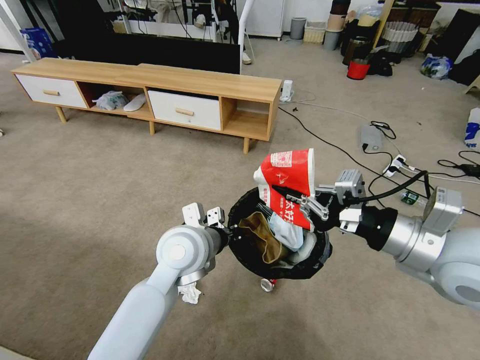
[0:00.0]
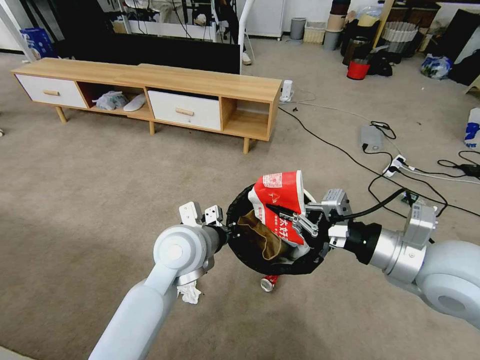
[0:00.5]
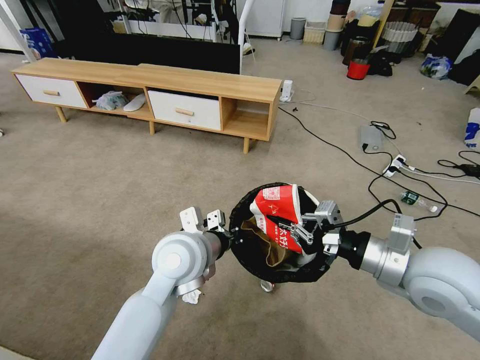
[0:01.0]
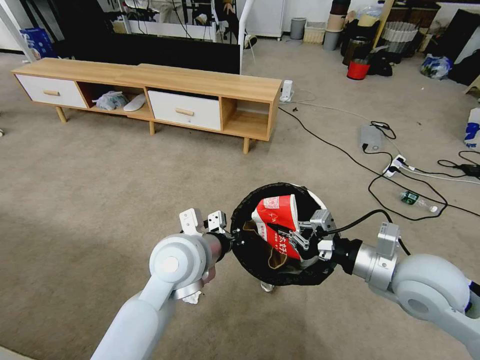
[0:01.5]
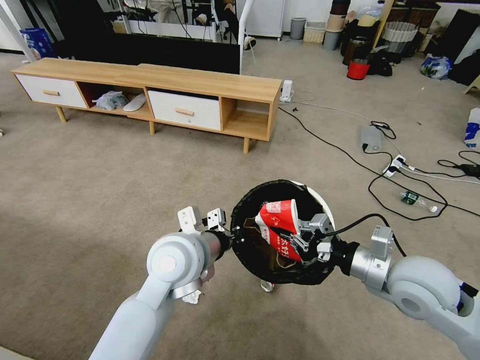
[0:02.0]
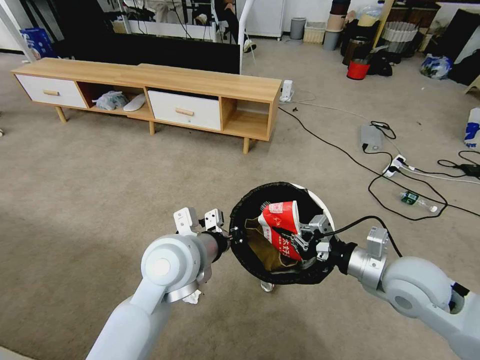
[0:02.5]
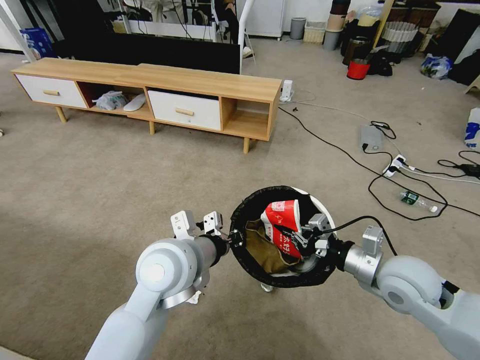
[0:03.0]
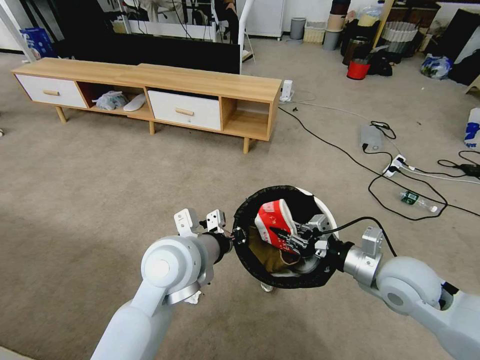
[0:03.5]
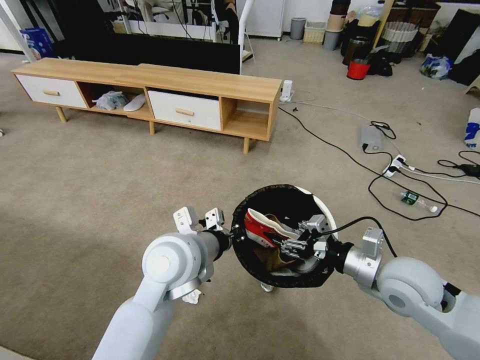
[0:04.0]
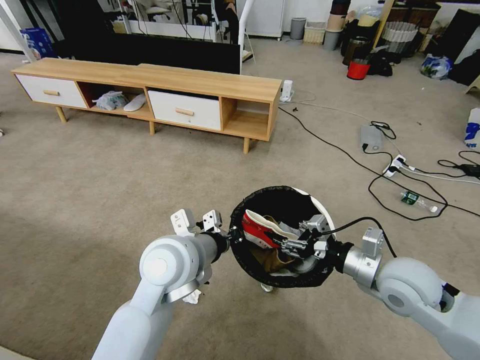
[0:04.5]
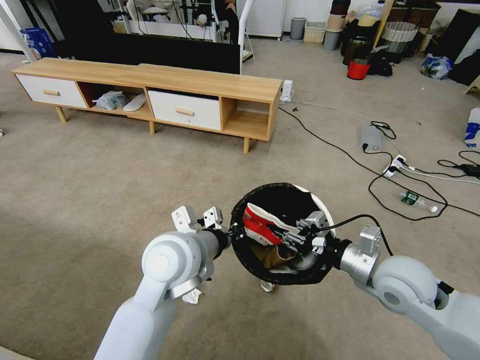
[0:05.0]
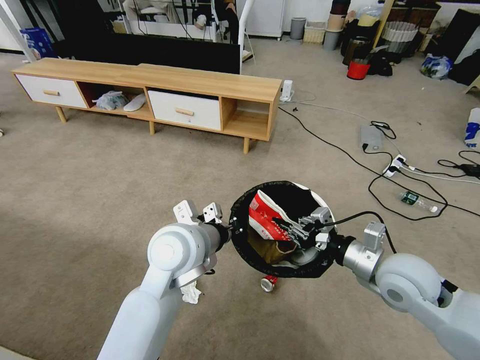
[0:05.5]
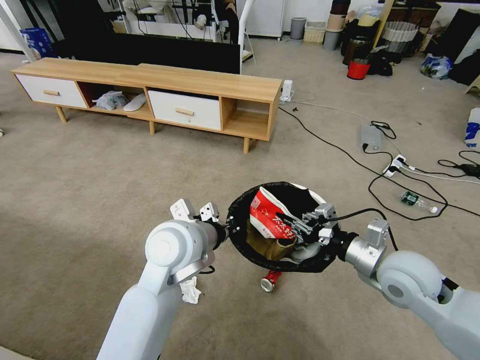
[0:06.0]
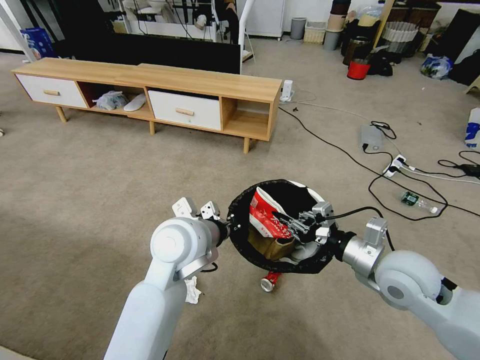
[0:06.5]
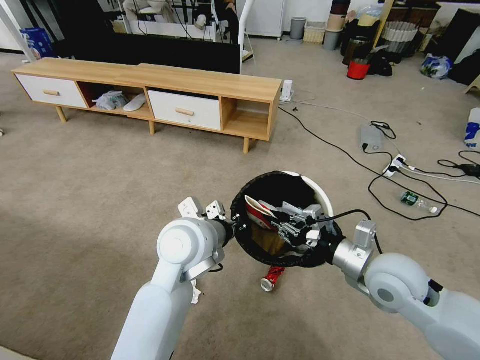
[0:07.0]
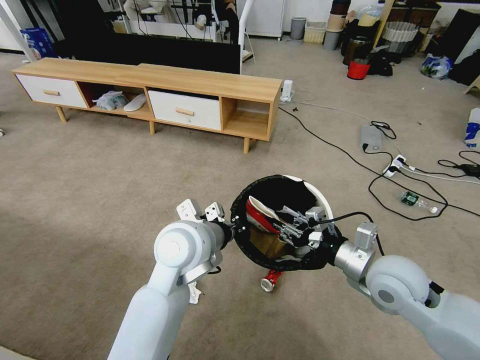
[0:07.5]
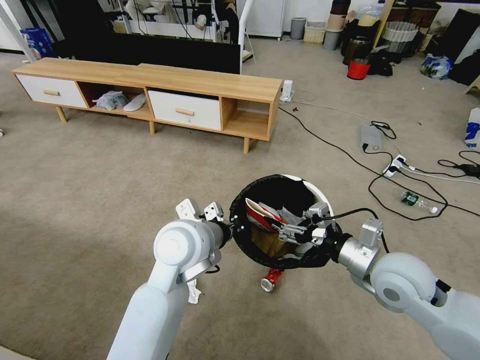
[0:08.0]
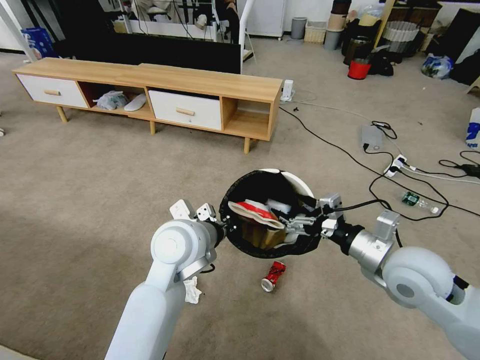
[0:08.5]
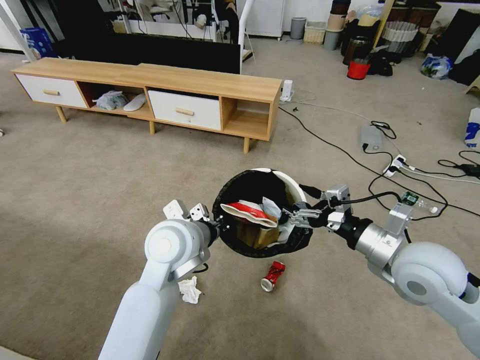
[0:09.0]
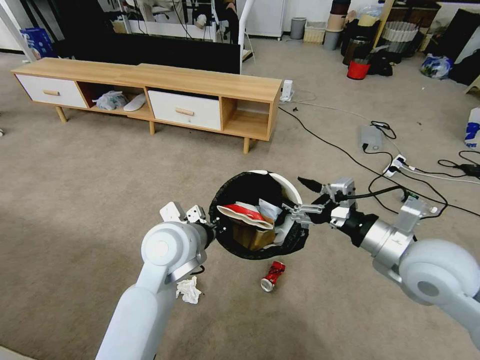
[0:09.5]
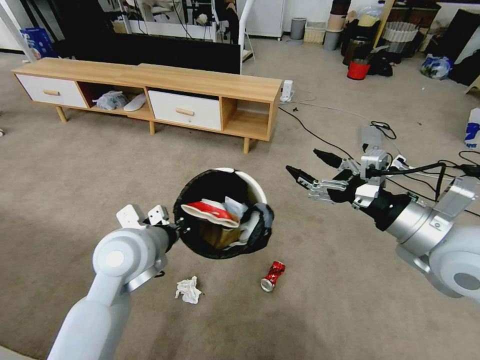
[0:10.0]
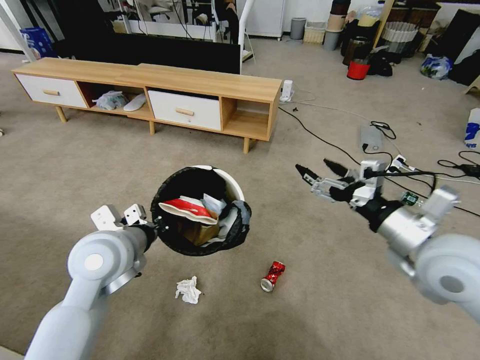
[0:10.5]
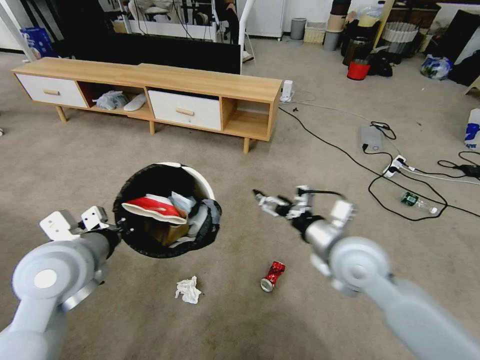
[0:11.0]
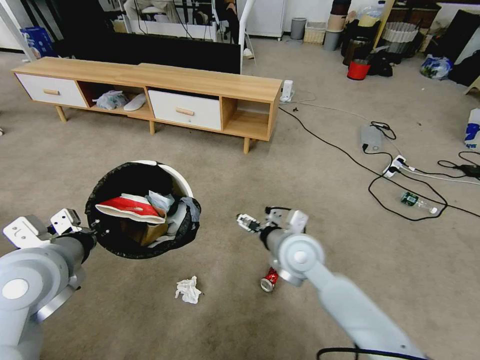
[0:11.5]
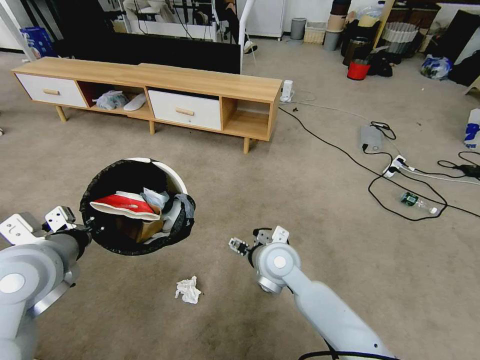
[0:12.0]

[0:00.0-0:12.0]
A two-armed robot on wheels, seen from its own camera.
Task of the whole recording: Pick up the trash bin and place the garbage on the floor into it.
0:00.0 to 0:02.0: The right gripper travels downward by about 10 cm.
0:02.0 to 0:04.0: The right gripper opens its fingers.
0:04.0 to 0:06.0: The right gripper closes its fingers.
0:06.0 to 0:08.0: The right gripper opens its fingers.
0:08.0 to 0:10.0: The left gripper travels to the left by approximately 10 cm, while the right gripper goes roughly 10 cm upward.
0:10.0 to 0:12.0: The left gripper shifts about 10 cm to the left; the right gripper shifts approximately 30 cm to the left and downward.

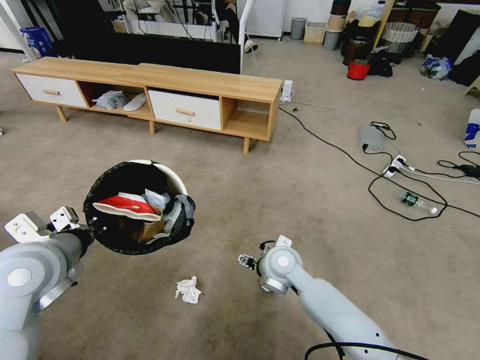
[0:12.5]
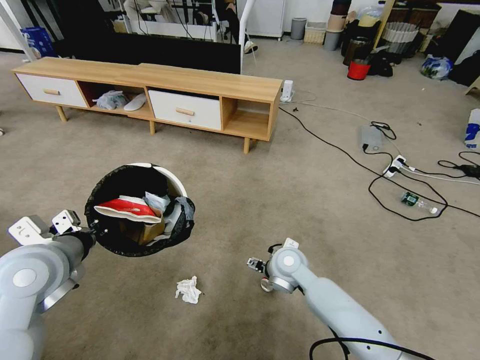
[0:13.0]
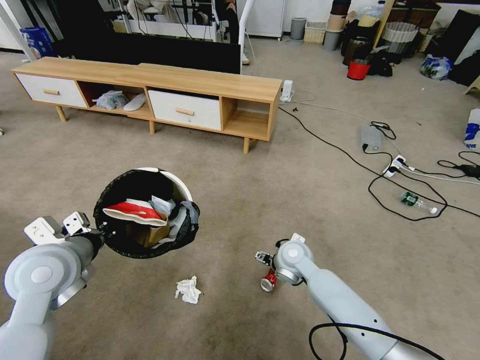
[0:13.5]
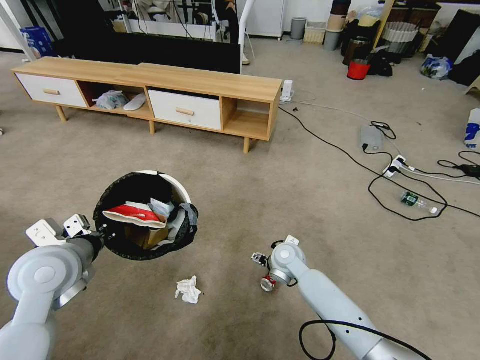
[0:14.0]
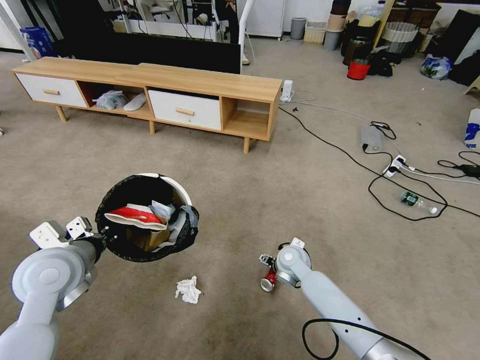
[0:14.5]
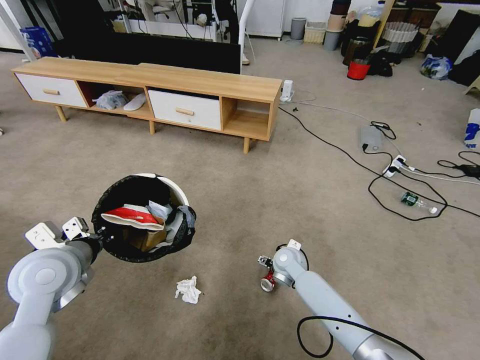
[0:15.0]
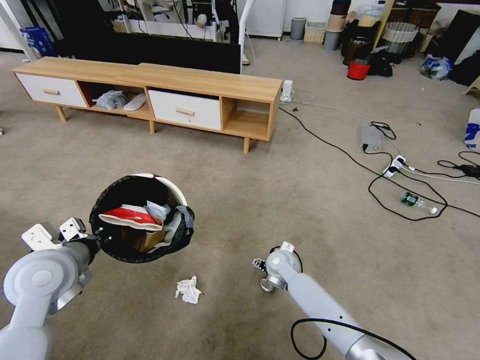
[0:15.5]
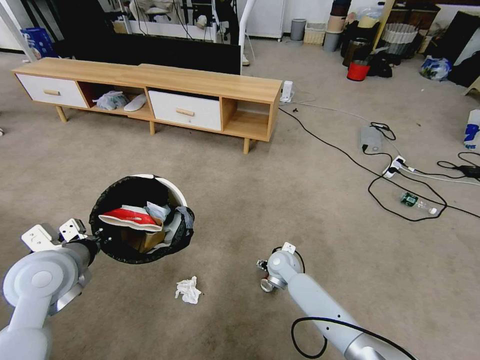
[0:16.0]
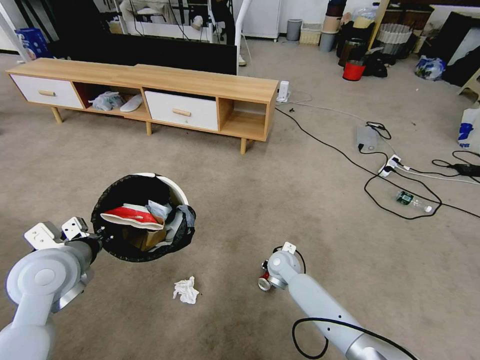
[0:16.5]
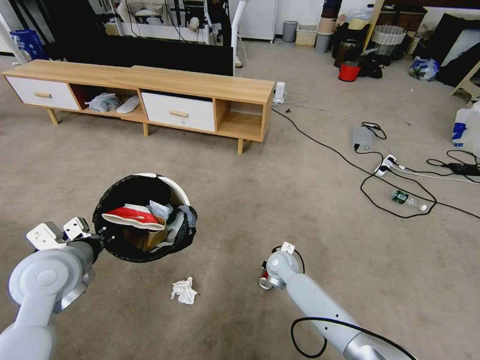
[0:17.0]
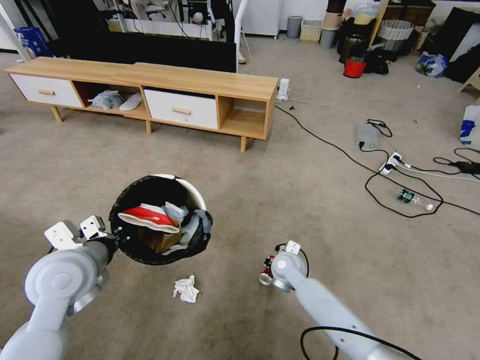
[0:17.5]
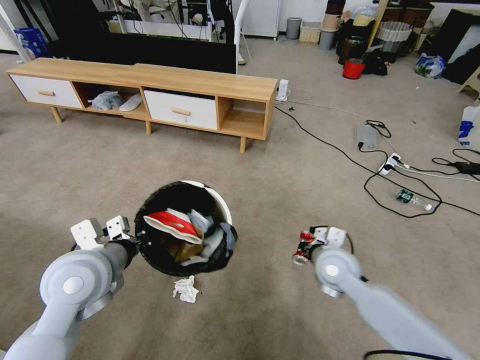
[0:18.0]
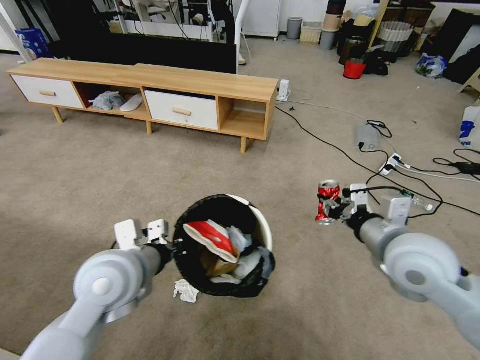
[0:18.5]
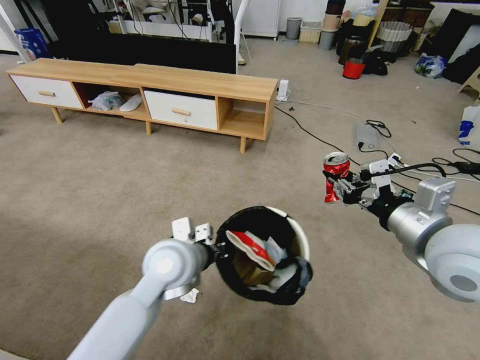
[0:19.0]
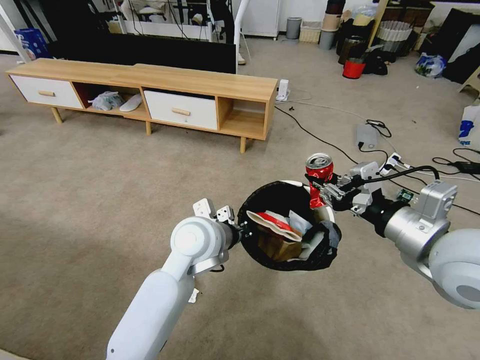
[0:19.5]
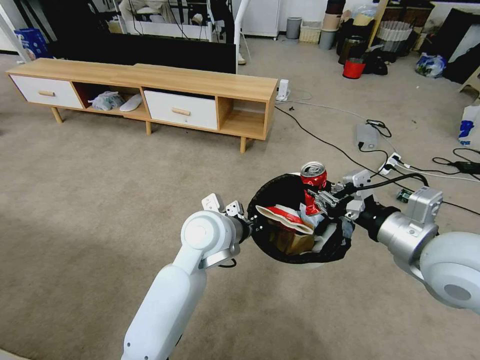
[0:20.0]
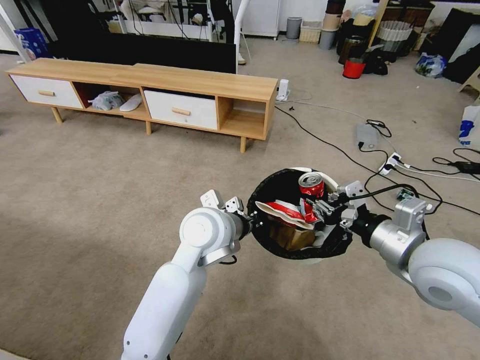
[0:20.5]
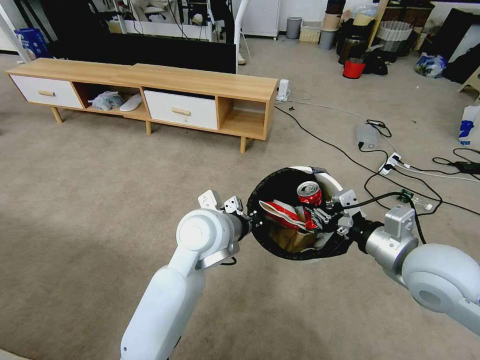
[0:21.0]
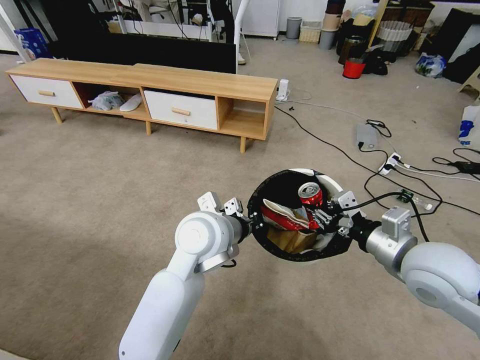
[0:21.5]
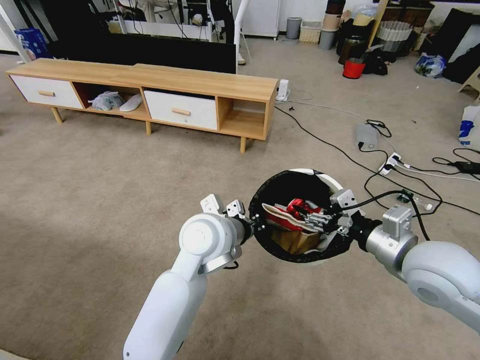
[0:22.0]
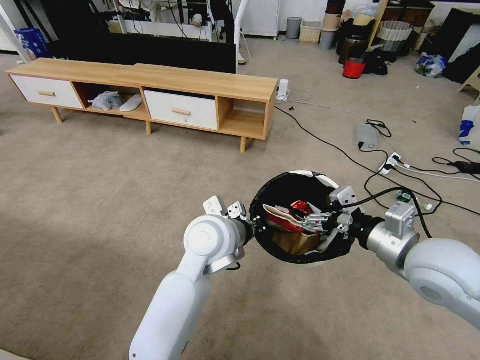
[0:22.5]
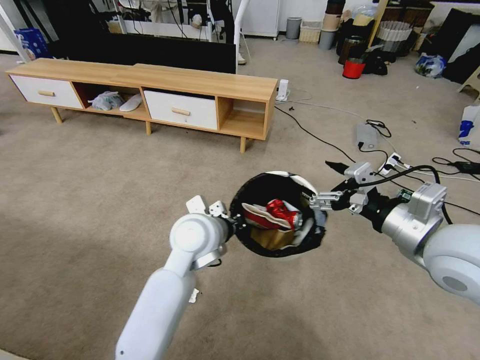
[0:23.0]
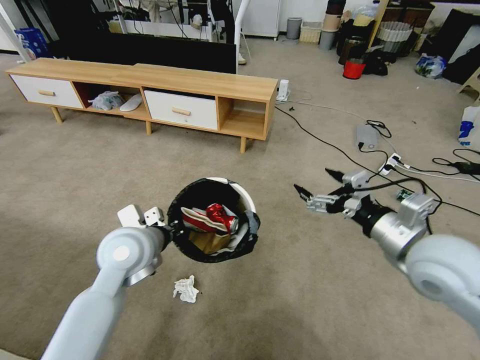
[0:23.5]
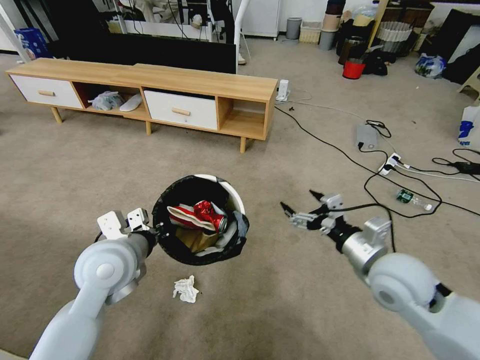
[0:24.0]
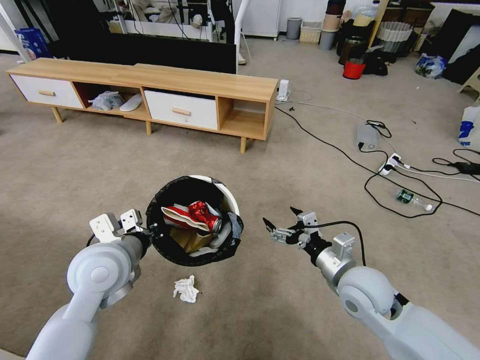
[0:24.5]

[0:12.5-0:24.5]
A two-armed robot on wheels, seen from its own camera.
Task of the whole recording: Pick up the trash bin and place the garbage on the floor into it.
0:12.5 to 0:14.5: The right gripper travels downward, forward and to the right by approximately 10 cm.
0:14.5 to 0:16.5: The right gripper closes up.
0:16.5 to 0:18.5: The left gripper travels to the right by some 10 cm; the right gripper is displaced upward, to the right and backward by some 35 cm.
0:18.5 to 0:20.5: The left gripper is displaced to the right and forward by roughly 20 cm.
0:20.5 to 0:22.5: The right gripper opens up.
0:22.5 to 0:24.5: The left gripper is displaced to the left by some 20 cm. The right gripper travels downward and to the left by approximately 15 cm.

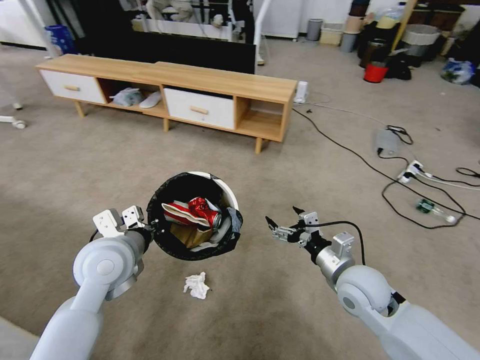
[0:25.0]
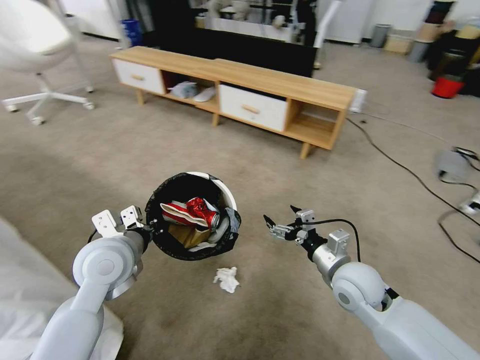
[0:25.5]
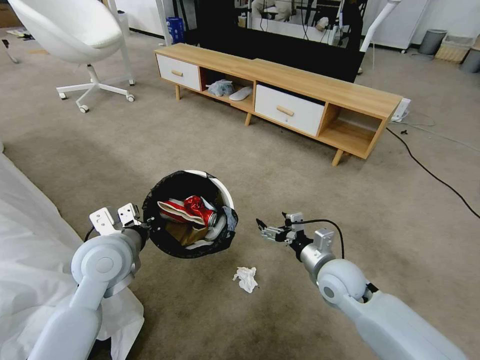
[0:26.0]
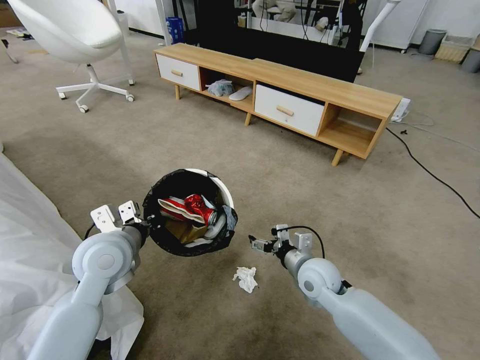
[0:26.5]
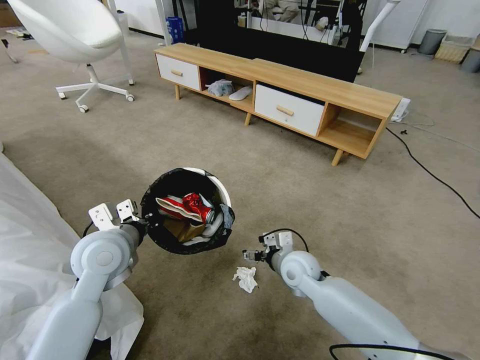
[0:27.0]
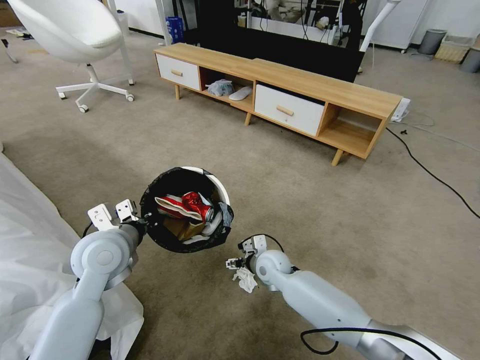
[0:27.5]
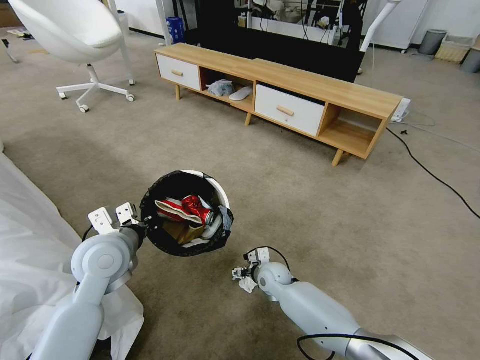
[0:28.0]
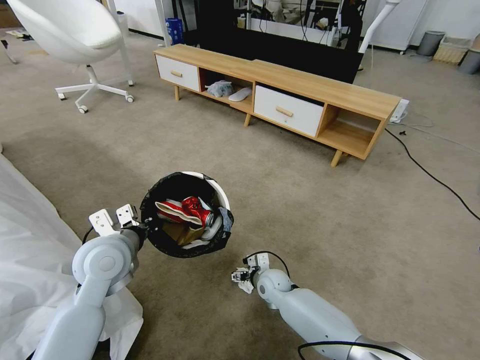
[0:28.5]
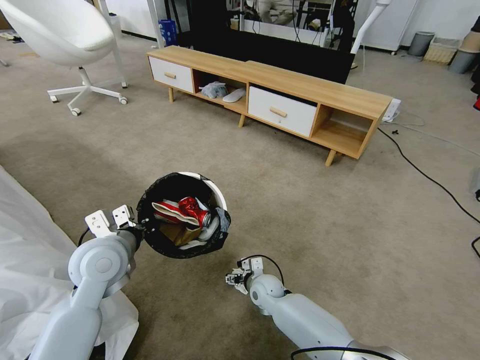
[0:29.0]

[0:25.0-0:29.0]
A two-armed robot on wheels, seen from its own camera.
Task of the whole recording: Pick up the trash bin and place the garbage on the floor into it.
0:25.0 to 0:27.0: The right gripper moves to the left, forward and downward, approximately 15 cm.
0:27.0 to 0:29.0: The right gripper shifts approximately 15 cm downward and to the left.
